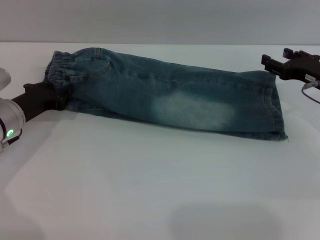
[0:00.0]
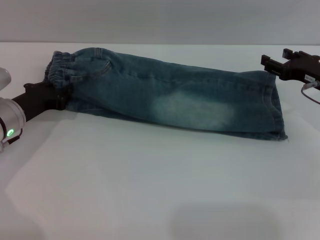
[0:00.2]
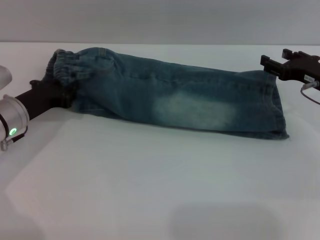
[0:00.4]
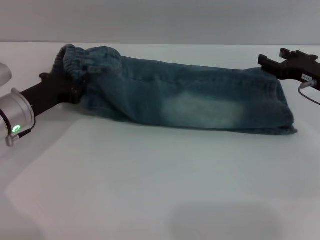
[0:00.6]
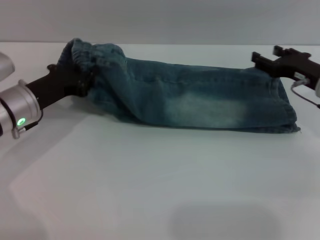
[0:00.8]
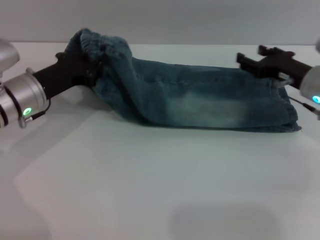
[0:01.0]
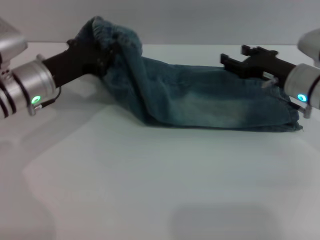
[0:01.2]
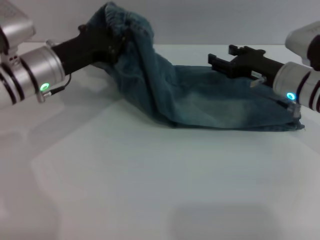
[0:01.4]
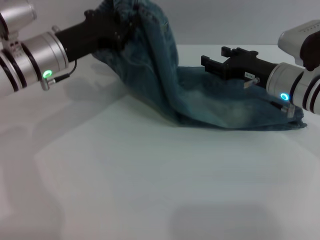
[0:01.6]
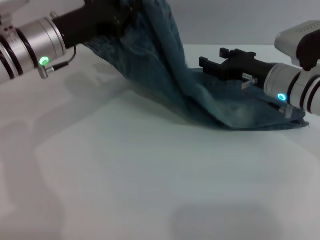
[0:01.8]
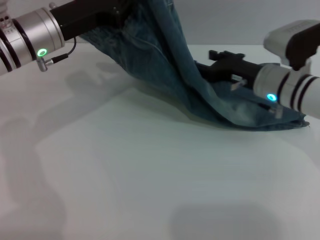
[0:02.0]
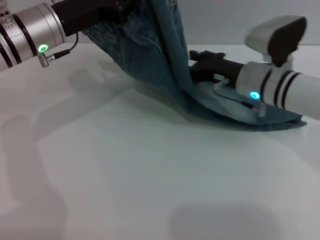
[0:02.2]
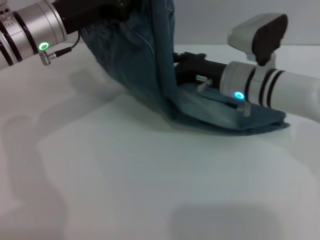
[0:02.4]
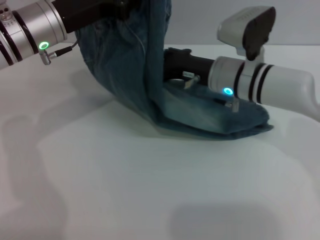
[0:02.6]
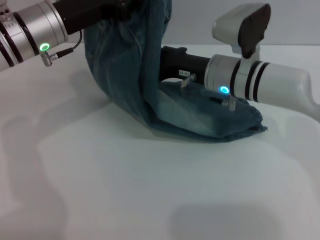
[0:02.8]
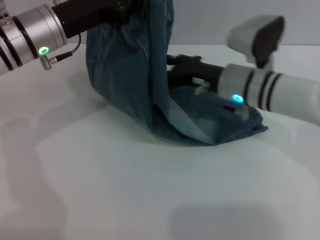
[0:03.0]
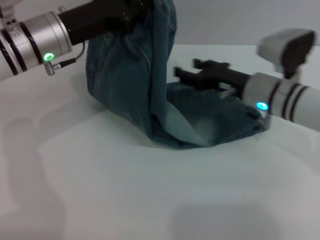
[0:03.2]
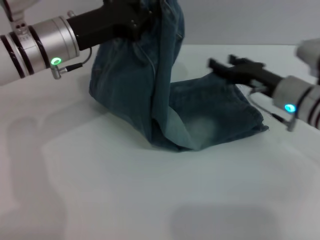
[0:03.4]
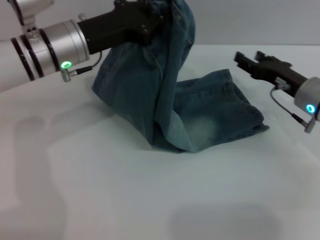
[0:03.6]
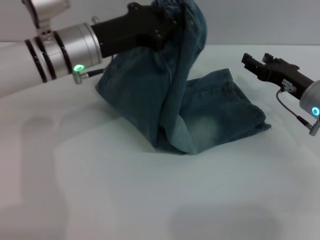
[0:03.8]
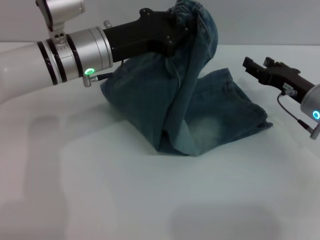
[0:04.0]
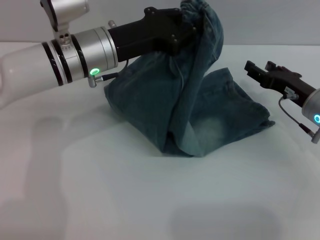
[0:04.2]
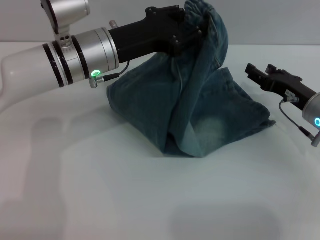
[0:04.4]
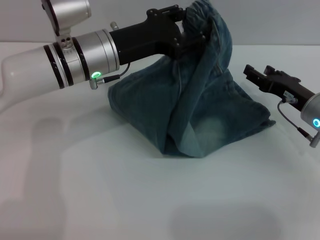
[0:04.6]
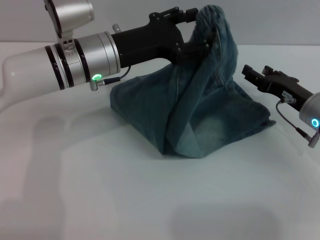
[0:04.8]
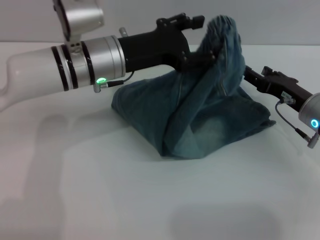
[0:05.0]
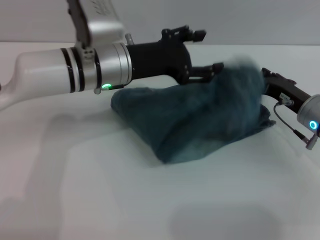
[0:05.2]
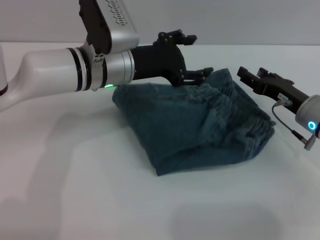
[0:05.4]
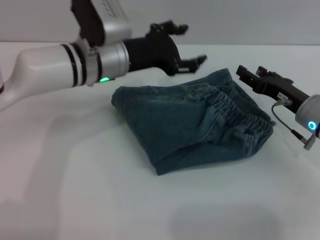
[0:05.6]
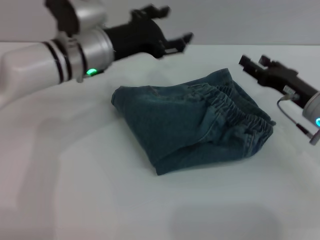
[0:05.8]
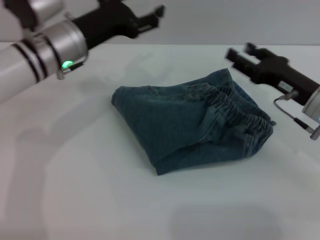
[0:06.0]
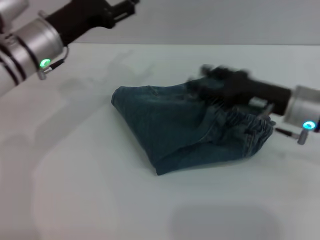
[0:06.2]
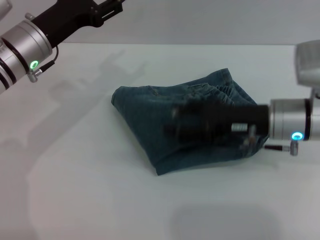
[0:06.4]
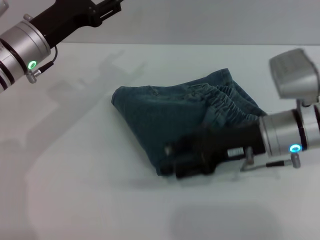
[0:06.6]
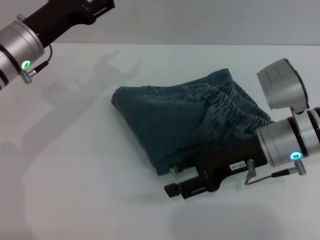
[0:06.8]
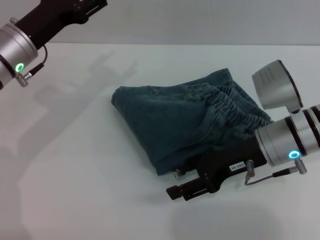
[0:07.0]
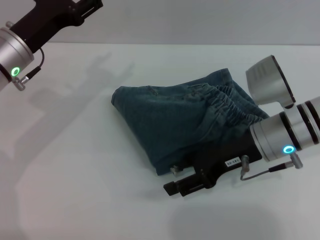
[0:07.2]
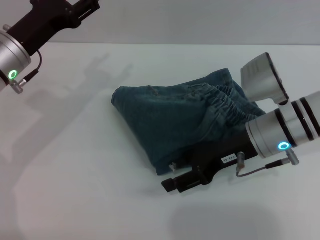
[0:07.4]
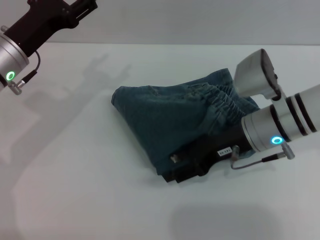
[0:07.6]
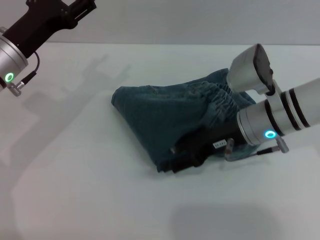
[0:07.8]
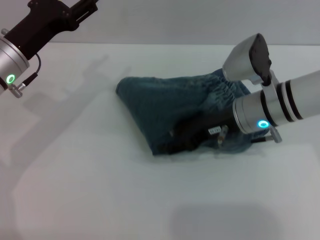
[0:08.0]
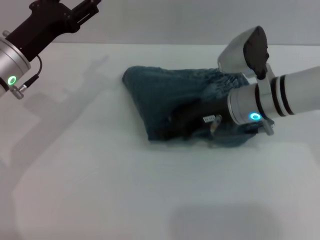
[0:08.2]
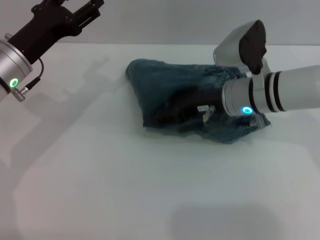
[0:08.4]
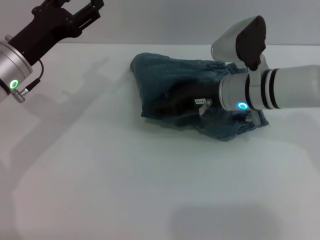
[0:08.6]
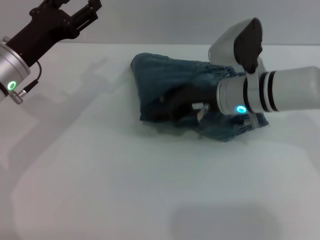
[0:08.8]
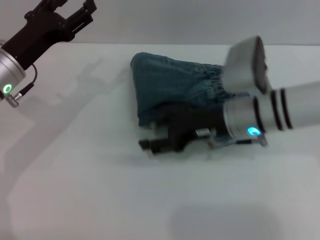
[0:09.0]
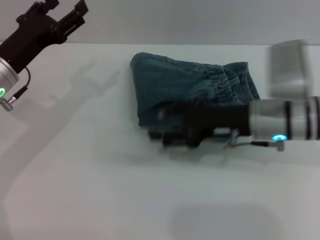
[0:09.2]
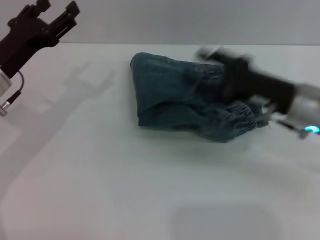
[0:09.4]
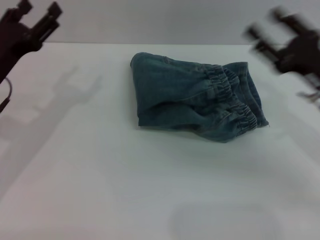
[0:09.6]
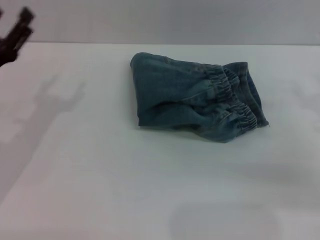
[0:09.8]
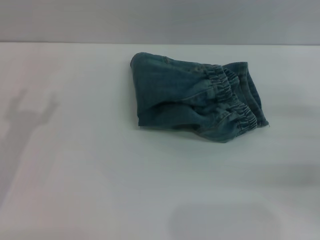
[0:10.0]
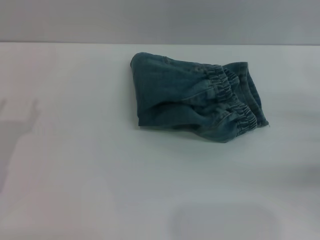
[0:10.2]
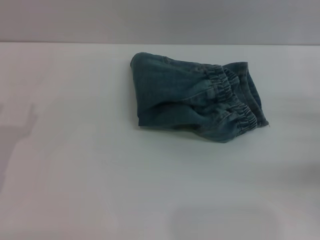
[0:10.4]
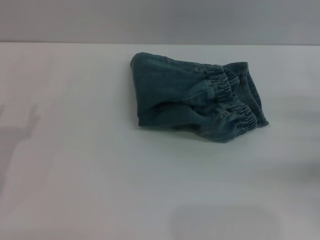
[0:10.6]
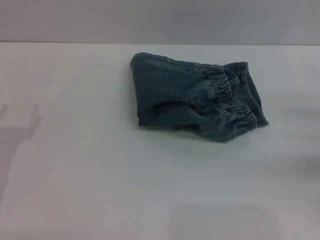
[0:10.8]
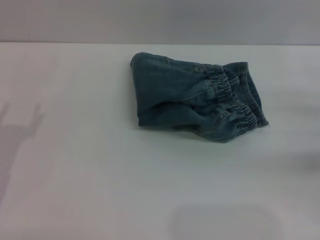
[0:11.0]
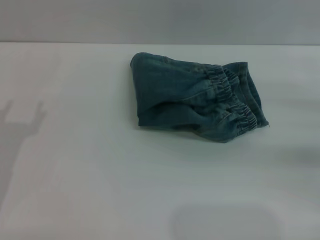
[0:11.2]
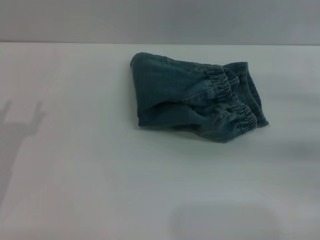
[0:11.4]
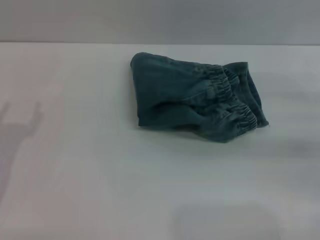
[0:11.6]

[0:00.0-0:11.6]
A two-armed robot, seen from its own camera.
Step, 0:00.0 to 0:05.2: Fold the pants from left to right with the left gripper.
Step, 0:05.4 to 0:09.0: Place the folded trousers onto the center area with the right grippers.
0:00.0 to 0:01.4: The left gripper is displaced upward and to the right by approximately 10 cm, while the right gripper travels to the left by some 10 cm.
0:01.4 to 0:02.8: The left gripper heads upward, covering approximately 5 cm, while the right gripper is displaced to the left by roughly 10 cm.
0:02.8 to 0:04.4: The right gripper heads to the right and downward, covering approximately 15 cm, while the left gripper shifts about 5 cm to the right.
0:04.4 to 0:05.8: The left gripper opens its fingers.
0:05.8 to 0:07.2: The grippers both shift to the left by roughly 10 cm.
0:07.2 to 0:08.8: The right gripper moves forward, some 5 cm.
0:08.8 to 0:10.2: The right gripper moves to the right and backward, roughly 25 cm. Meanwhile the left gripper heads backward, to the left and downward, covering about 15 cm.
0:10.2 to 0:11.6: The right gripper changes place by about 5 cm.

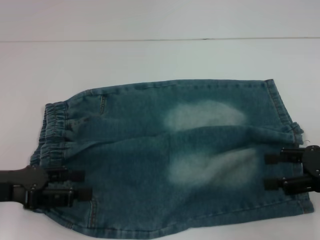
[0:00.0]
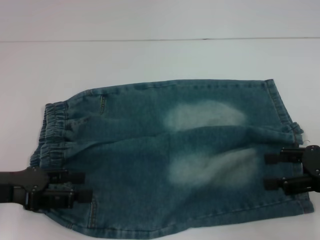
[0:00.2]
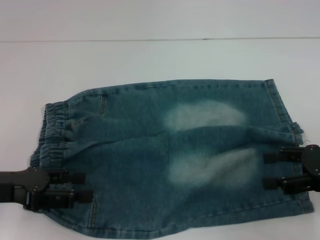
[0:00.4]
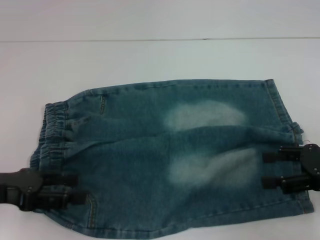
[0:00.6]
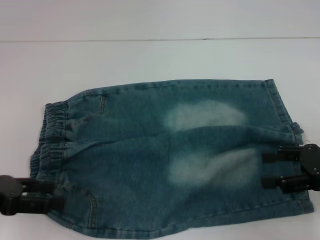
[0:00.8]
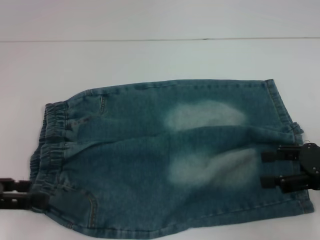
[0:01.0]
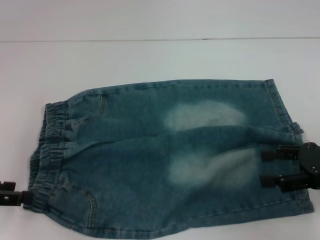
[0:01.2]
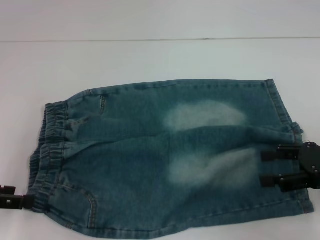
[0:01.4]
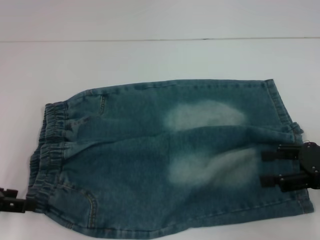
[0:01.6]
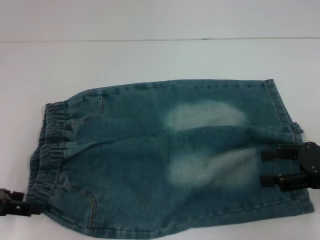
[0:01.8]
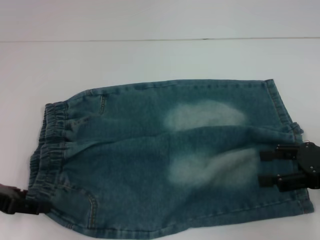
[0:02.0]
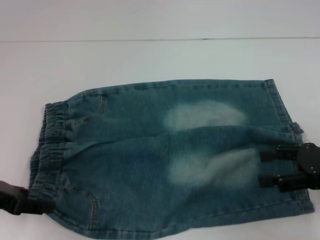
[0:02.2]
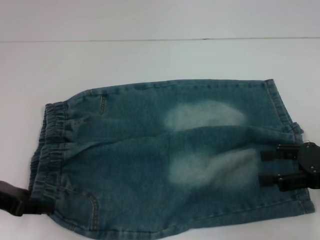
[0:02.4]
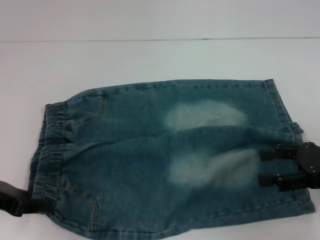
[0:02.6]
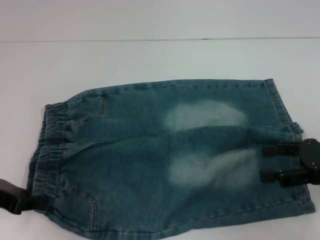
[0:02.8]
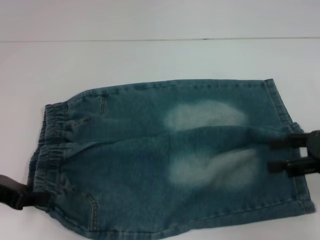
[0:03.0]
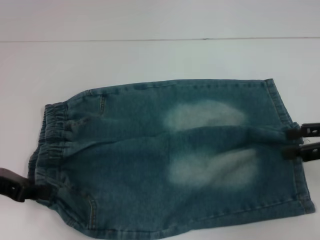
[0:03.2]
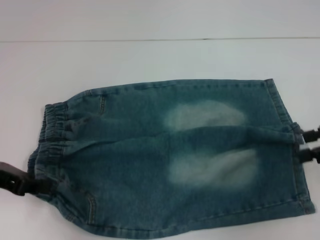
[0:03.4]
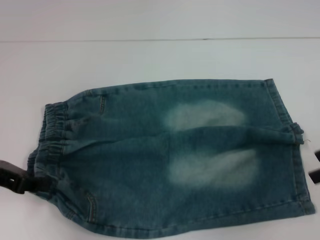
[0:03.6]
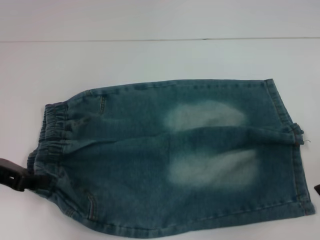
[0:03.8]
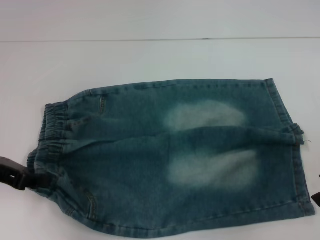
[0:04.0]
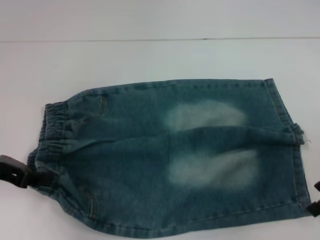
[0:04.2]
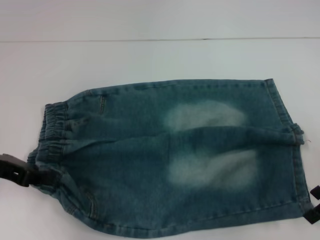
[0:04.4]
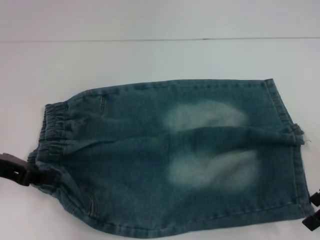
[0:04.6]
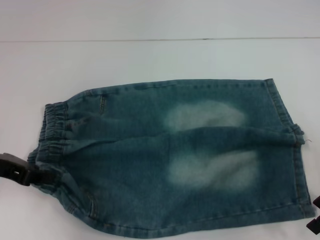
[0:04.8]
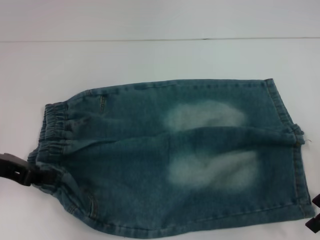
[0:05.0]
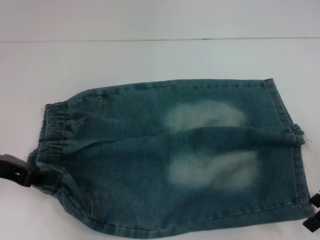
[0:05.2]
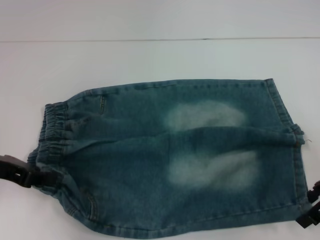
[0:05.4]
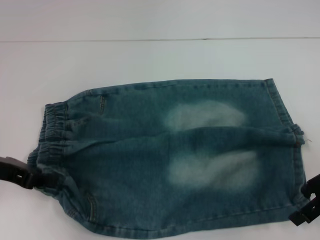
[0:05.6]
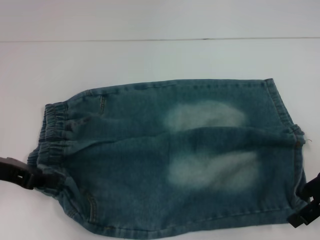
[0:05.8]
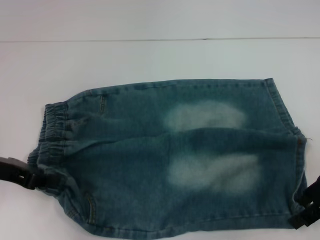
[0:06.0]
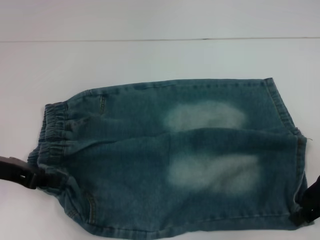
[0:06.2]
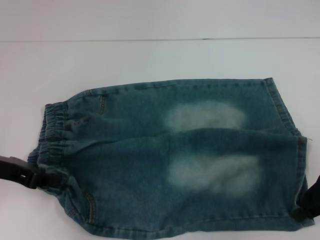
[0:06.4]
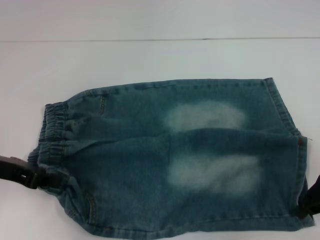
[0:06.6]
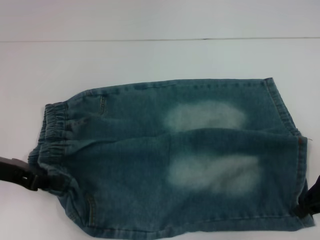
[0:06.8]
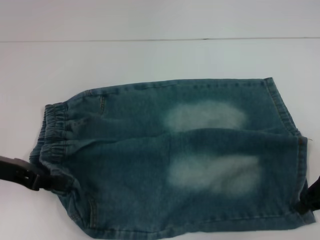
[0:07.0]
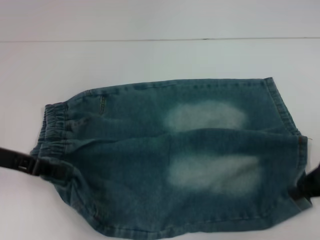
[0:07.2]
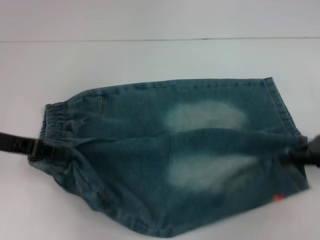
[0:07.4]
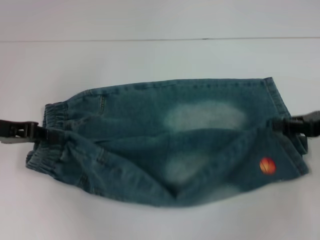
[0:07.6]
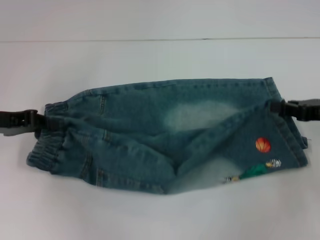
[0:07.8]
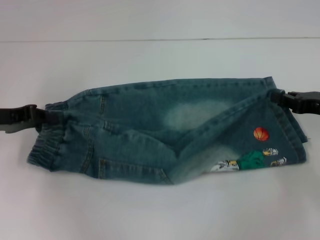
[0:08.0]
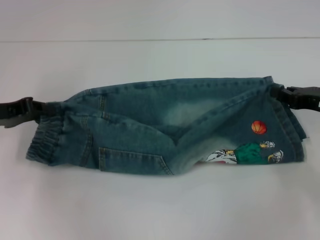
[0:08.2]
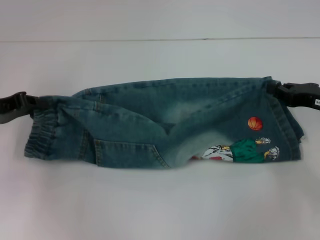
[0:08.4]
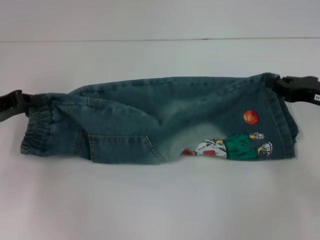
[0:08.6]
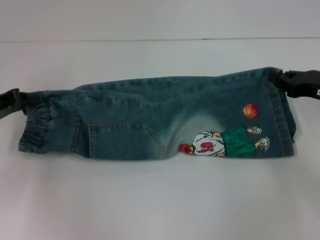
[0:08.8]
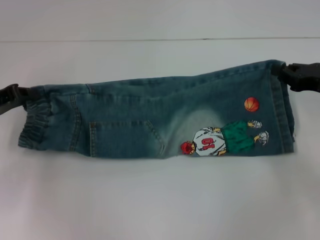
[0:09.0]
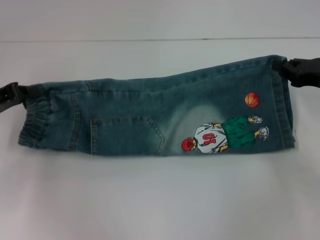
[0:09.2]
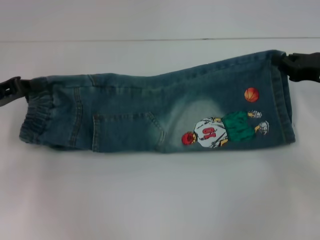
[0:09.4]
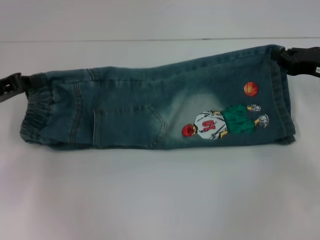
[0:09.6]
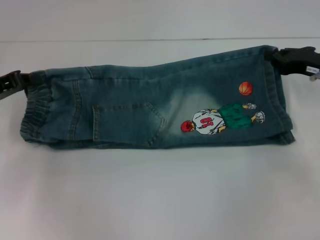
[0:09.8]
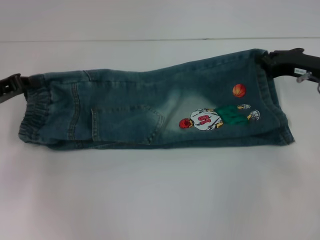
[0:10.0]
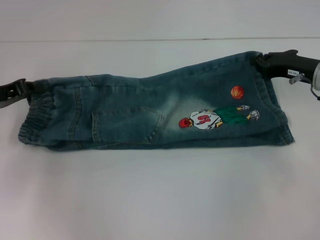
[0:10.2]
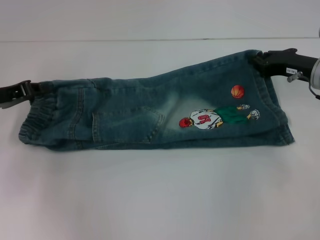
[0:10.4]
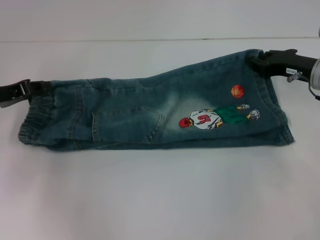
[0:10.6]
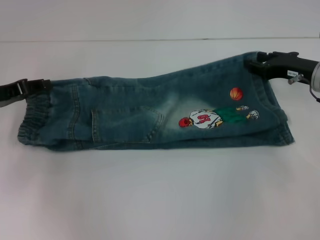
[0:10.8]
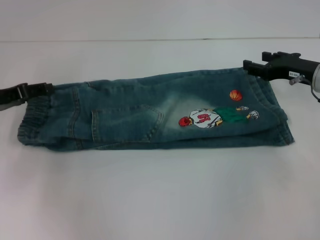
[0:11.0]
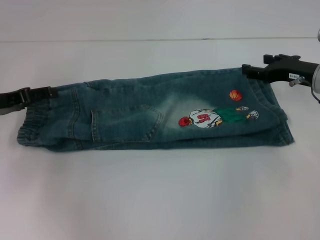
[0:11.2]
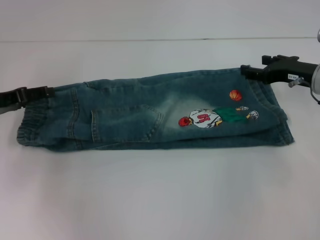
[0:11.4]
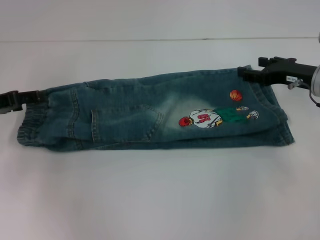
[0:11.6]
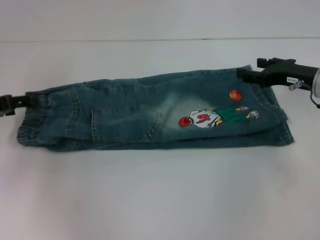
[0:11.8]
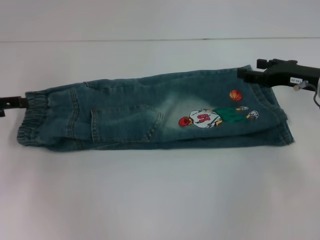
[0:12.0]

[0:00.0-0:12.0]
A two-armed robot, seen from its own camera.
Step, 0:00.0 to 0:03.0: Hold the lower left waistband with your left hand.
Step, 0:03.2 to 0:06.8: Grab the lower right pant leg with your right hand.
Step, 0:07.0 to 0:11.0: Fold upward with your right hand.
0:00.0 to 0:01.6: The left gripper heads to the left, covering about 5 cm.
0:01.6 to 0:03.0: The left gripper closes up.
0:04.4 to 0:06.0: There are only small adjustments of the grippers.
0:06.0 to 0:07.6: The right gripper closes its fingers.
0:09.0 to 0:10.4: The right gripper changes place by roughly 5 cm.
0:10.4 to 0:12.0: The right gripper opens up; the left gripper opens up.
